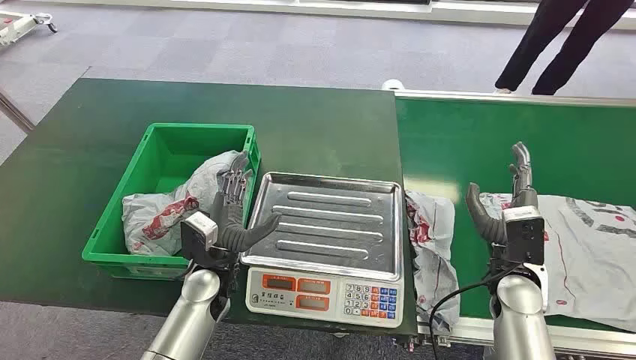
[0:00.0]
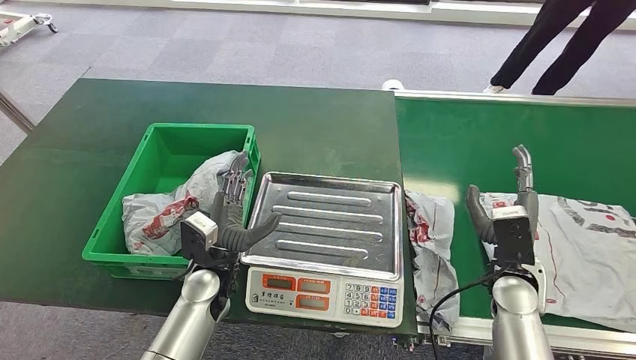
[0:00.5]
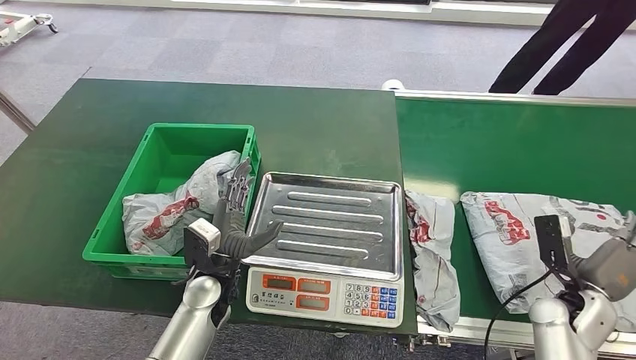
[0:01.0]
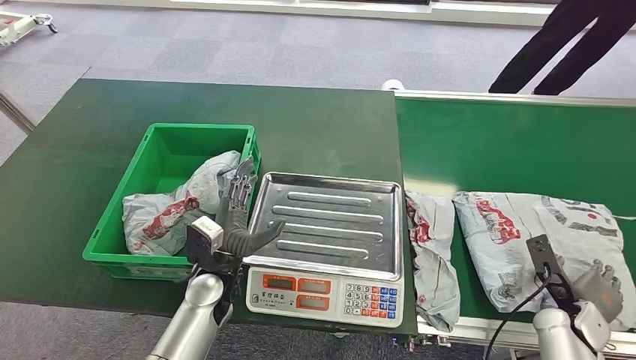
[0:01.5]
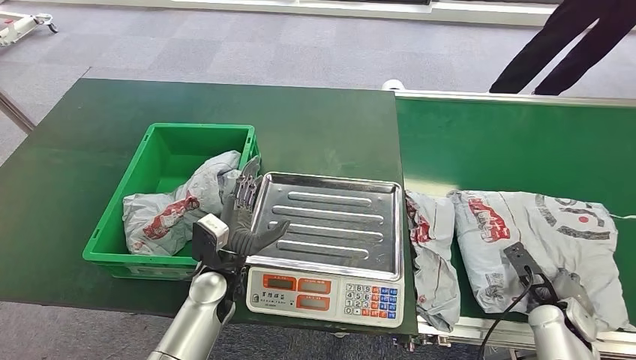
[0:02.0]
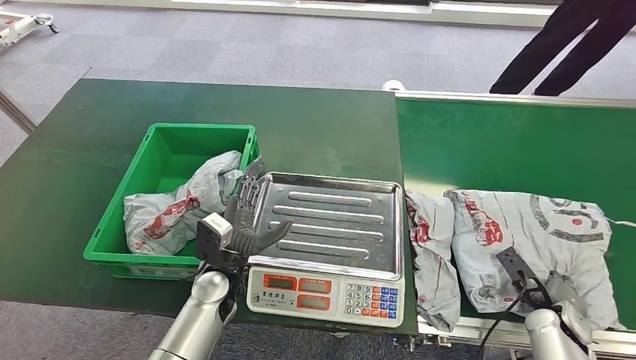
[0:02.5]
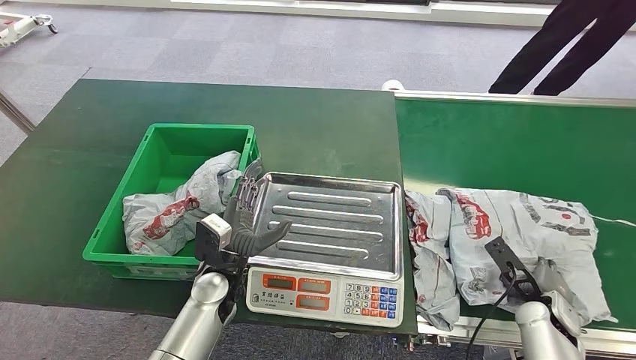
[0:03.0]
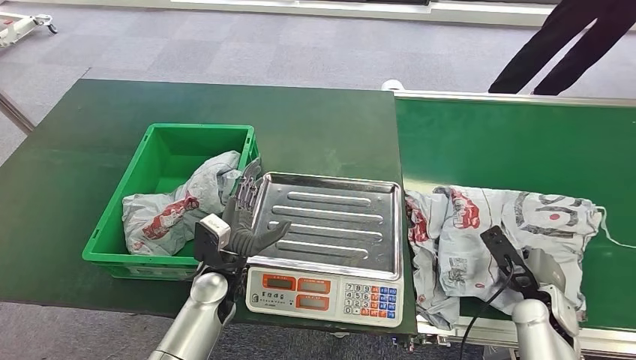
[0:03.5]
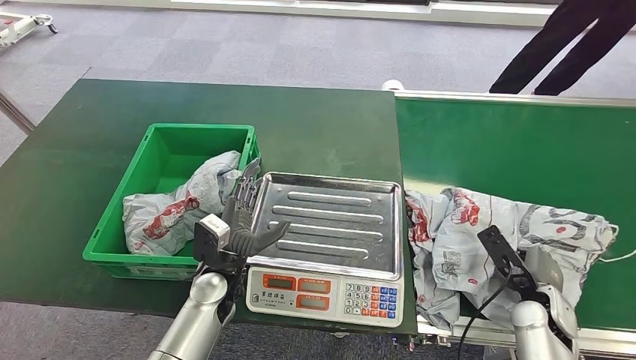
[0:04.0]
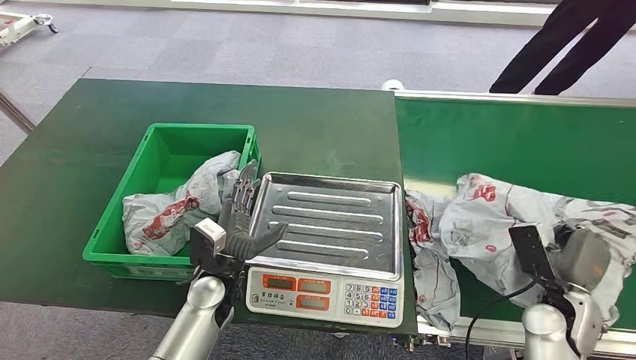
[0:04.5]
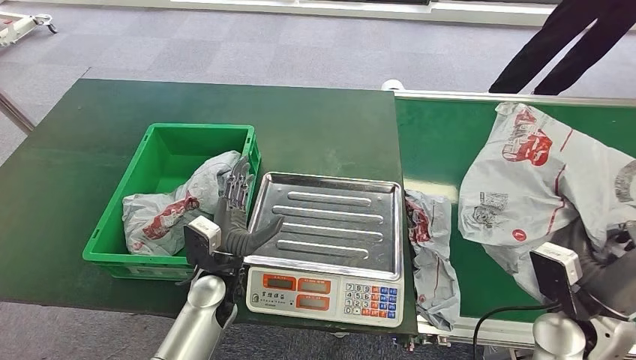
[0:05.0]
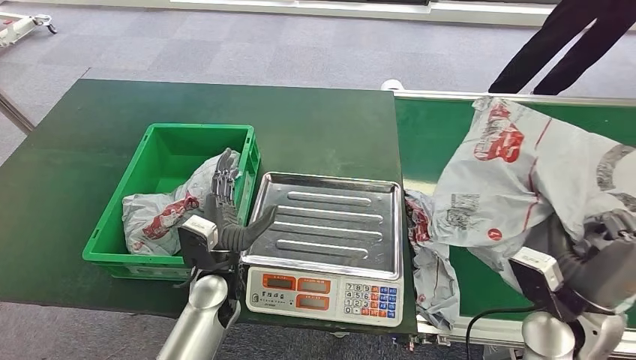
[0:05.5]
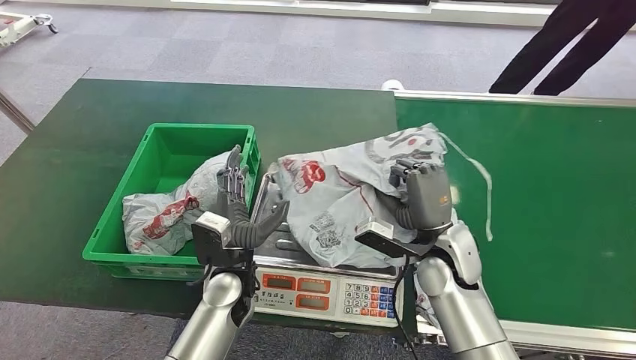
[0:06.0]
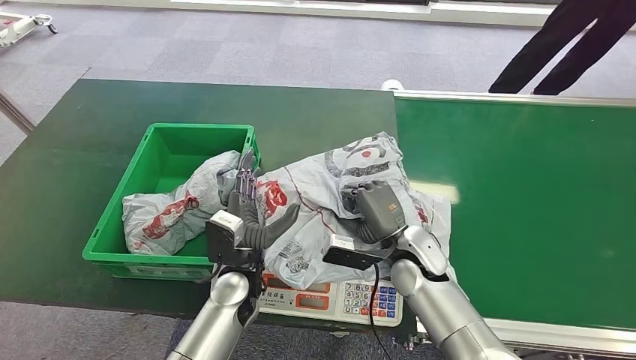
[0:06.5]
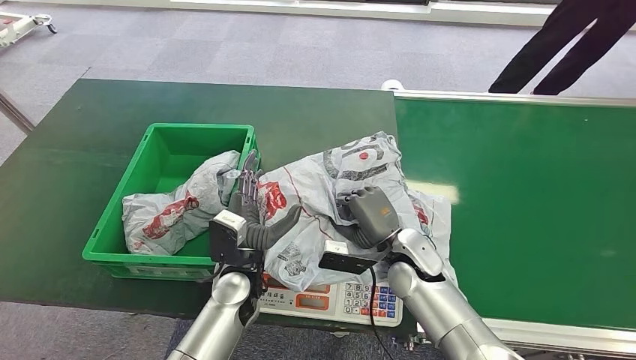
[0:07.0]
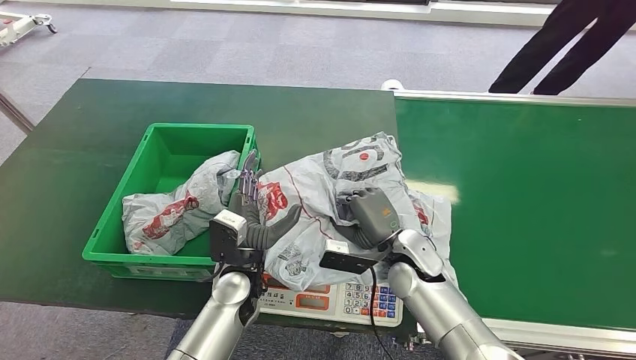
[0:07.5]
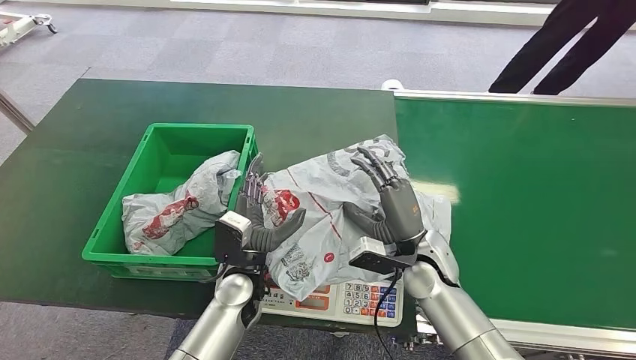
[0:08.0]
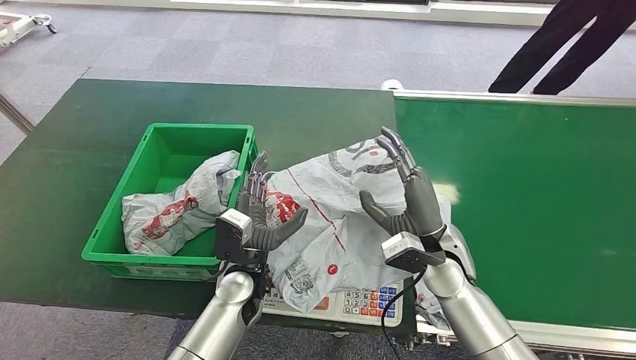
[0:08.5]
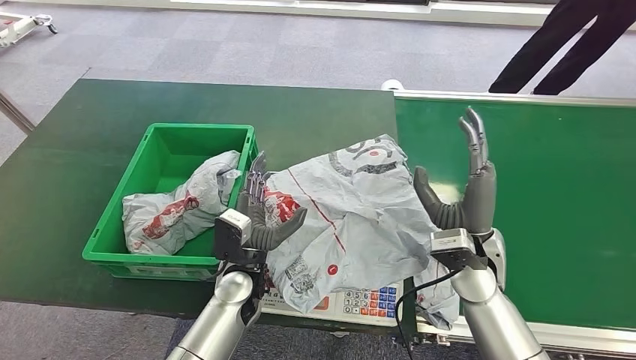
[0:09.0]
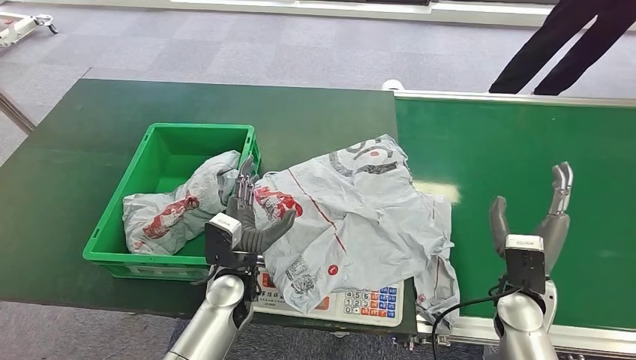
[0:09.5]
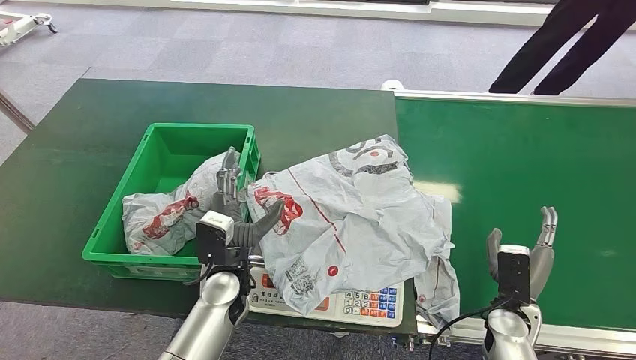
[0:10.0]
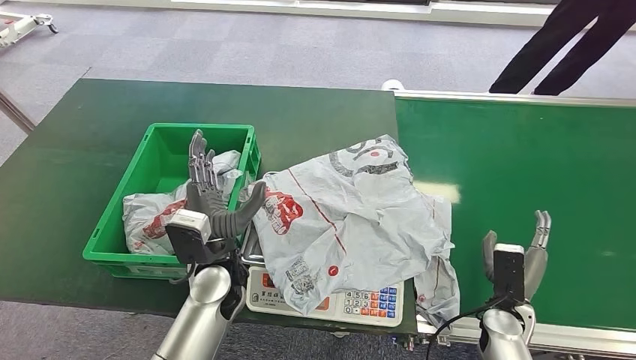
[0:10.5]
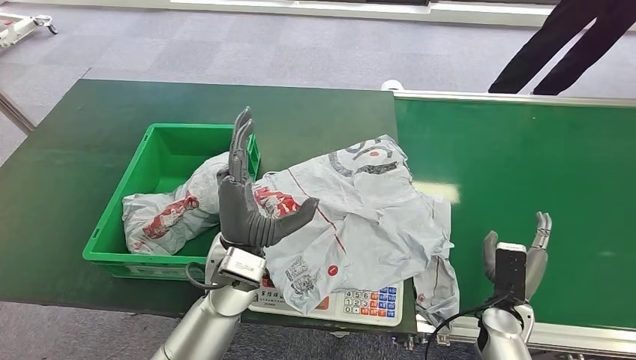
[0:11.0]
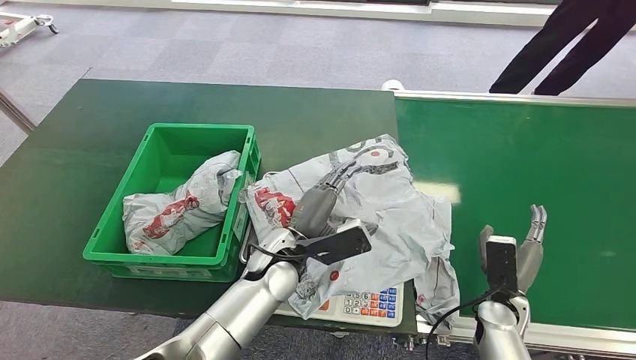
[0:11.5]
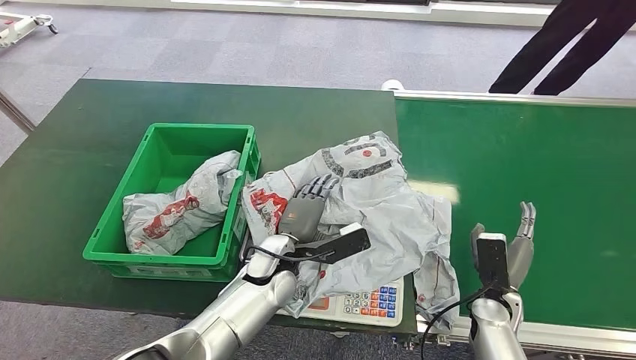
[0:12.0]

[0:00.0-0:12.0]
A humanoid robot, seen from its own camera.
Step, 0:00.0 to 0:05.5: Pick up the package from the conveyor belt.
Step, 0:06.0 to 0:09.0: Place the package onto the inbound machine.
0:02.0 to 0:04.0: The right hand shifts approximately 5 cm to the left.
0:08.0 to 0:10.0: The right hand heads to the right and downward, covering about 20 cm.
0:10.0 to 0:12.0: The left hand heads to the right, covering roughly 5 cm, and moves about 10 cm upward and comes back.

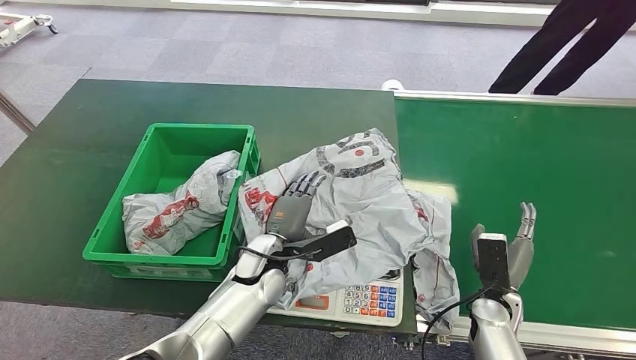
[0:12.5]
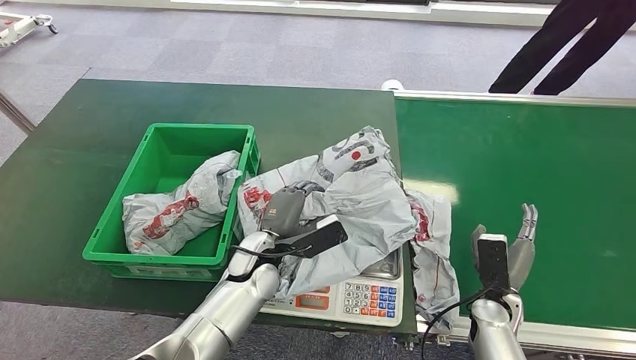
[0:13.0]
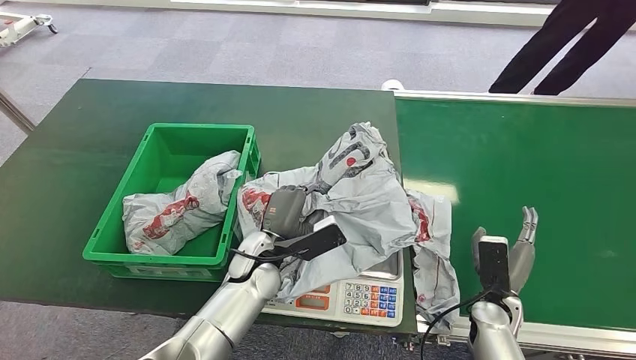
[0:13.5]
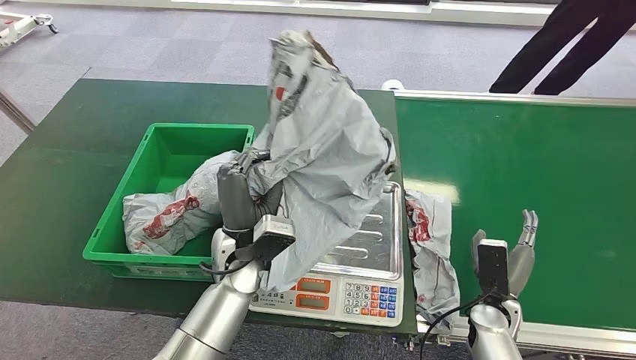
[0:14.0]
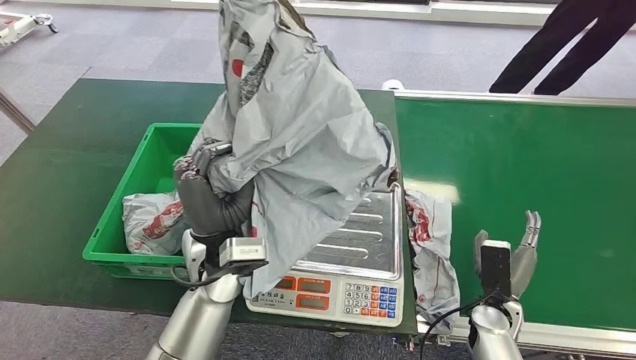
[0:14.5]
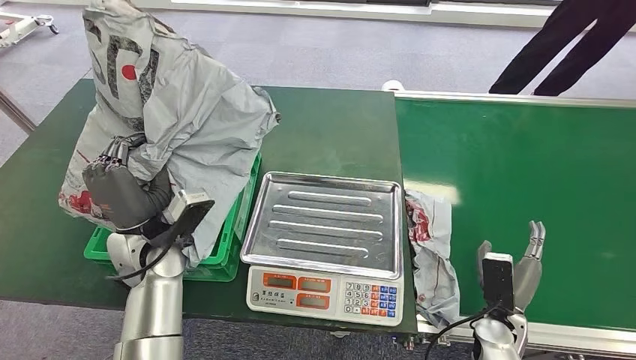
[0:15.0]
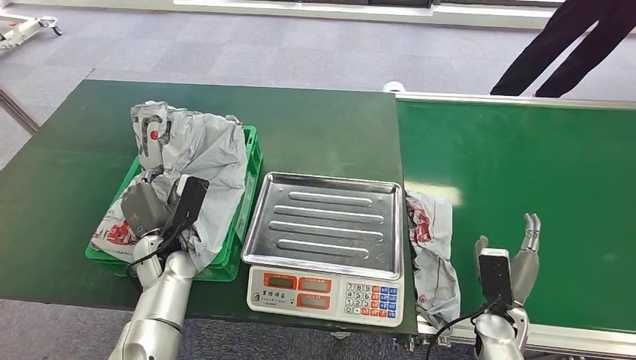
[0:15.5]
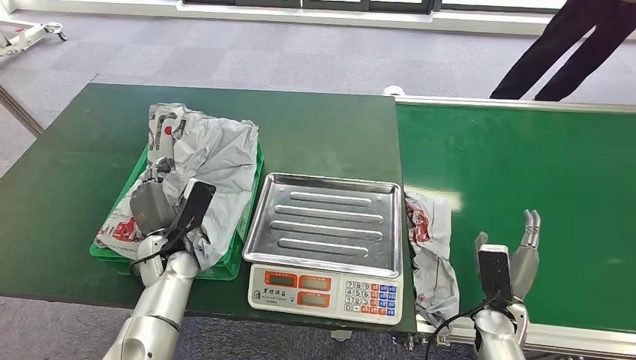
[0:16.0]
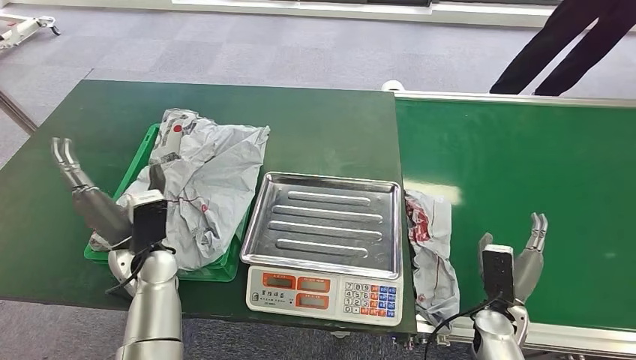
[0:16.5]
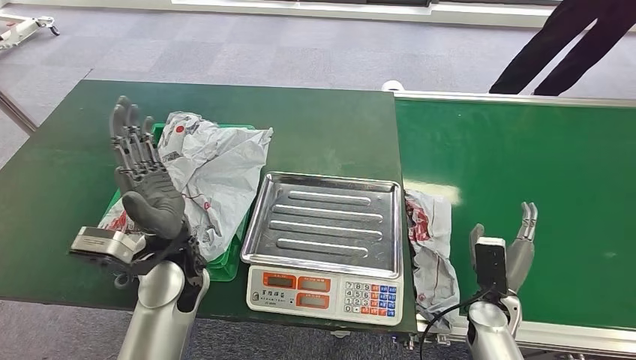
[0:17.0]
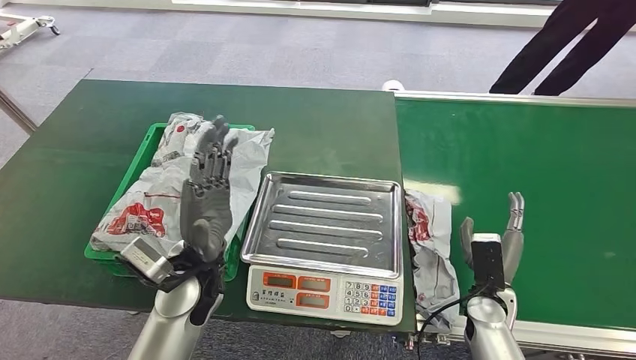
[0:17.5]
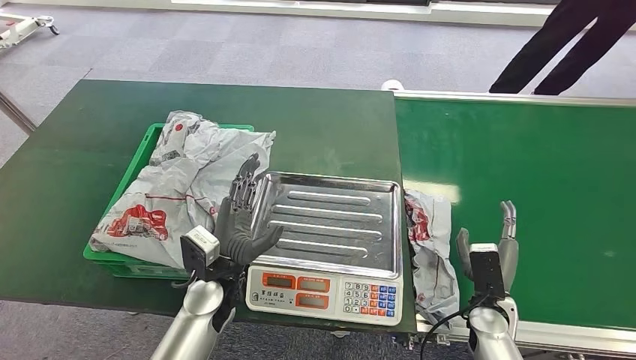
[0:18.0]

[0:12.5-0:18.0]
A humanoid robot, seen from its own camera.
Step, 0:12.5 to 0:14.5: Pick up the package from the inbound machine.
Step, 0:15.0 to 0:18.0: Place the package into the parcel locker.
